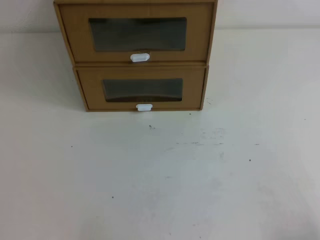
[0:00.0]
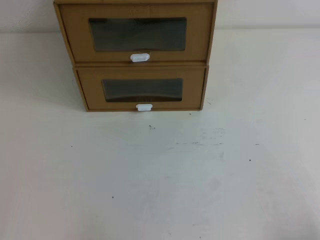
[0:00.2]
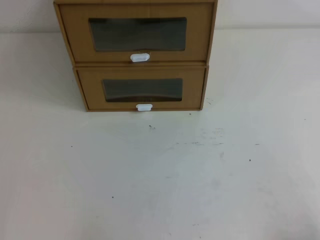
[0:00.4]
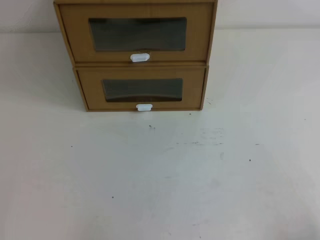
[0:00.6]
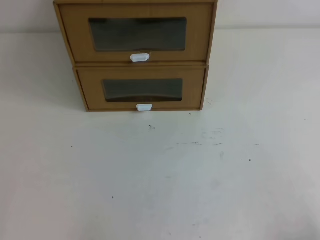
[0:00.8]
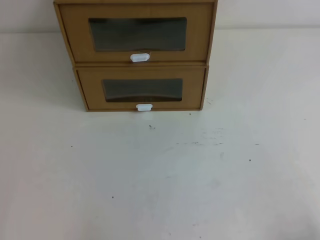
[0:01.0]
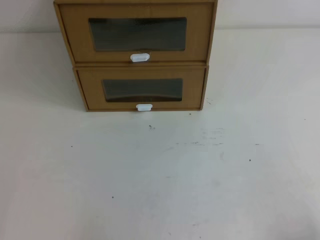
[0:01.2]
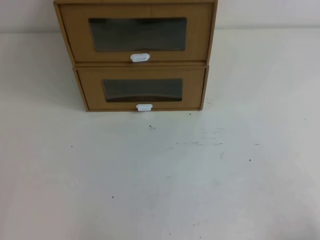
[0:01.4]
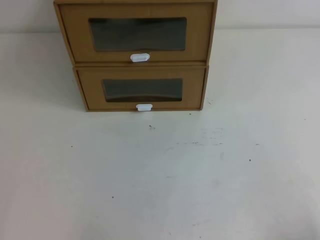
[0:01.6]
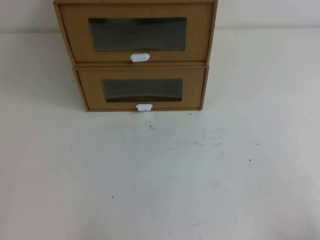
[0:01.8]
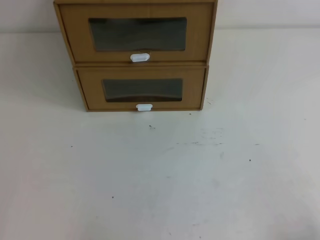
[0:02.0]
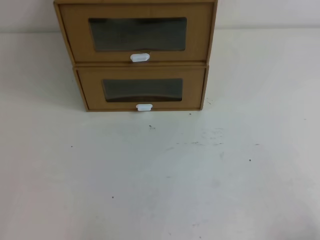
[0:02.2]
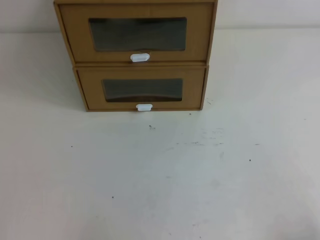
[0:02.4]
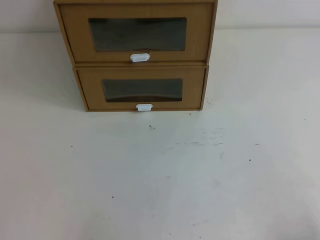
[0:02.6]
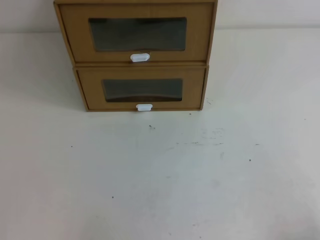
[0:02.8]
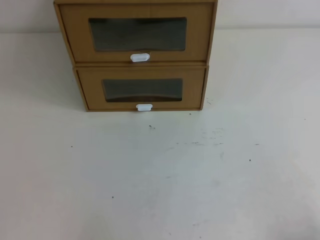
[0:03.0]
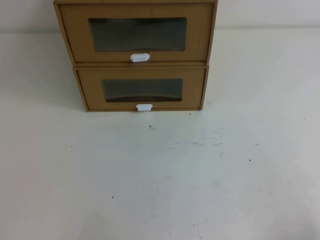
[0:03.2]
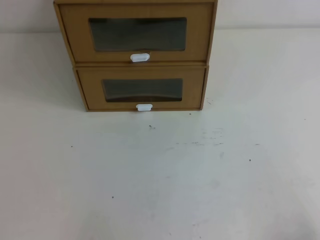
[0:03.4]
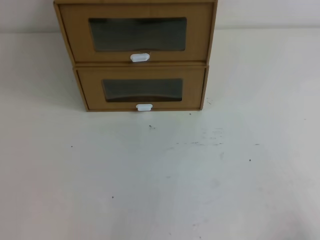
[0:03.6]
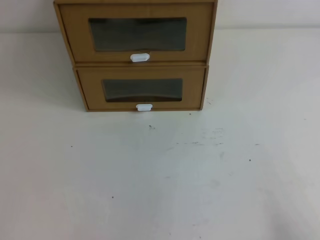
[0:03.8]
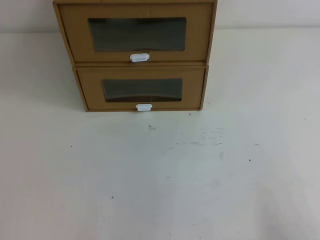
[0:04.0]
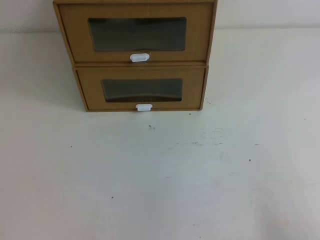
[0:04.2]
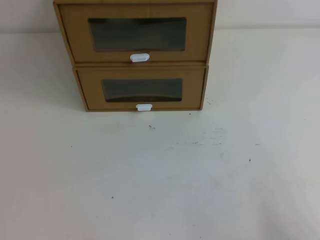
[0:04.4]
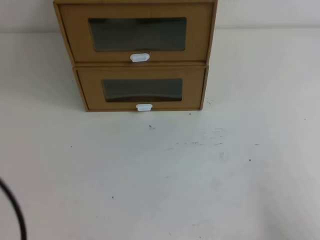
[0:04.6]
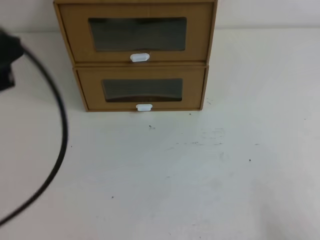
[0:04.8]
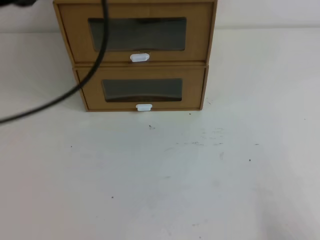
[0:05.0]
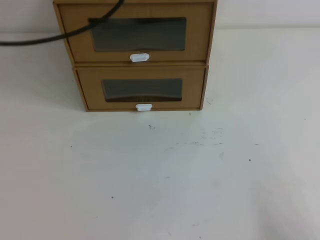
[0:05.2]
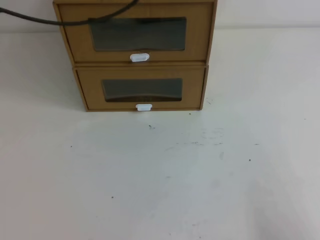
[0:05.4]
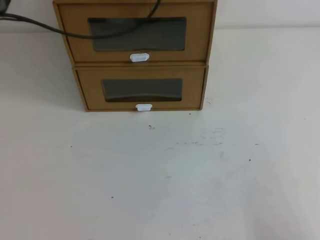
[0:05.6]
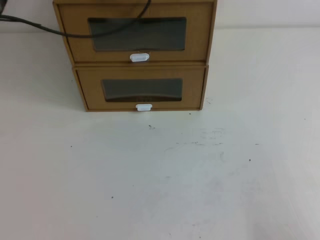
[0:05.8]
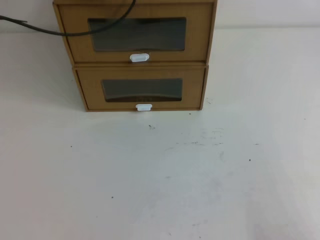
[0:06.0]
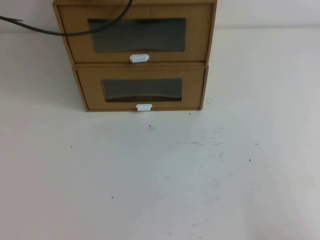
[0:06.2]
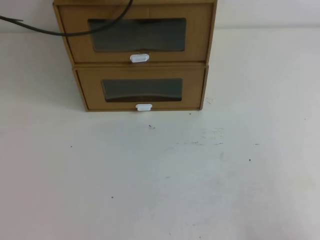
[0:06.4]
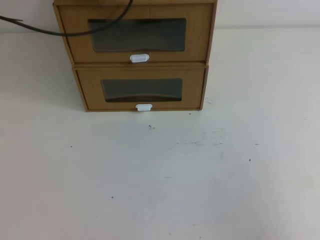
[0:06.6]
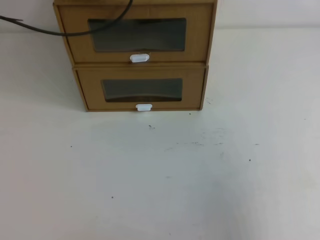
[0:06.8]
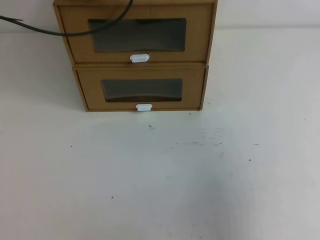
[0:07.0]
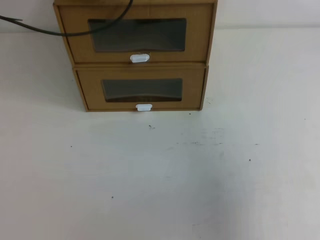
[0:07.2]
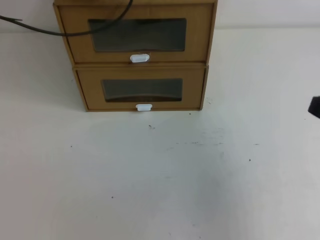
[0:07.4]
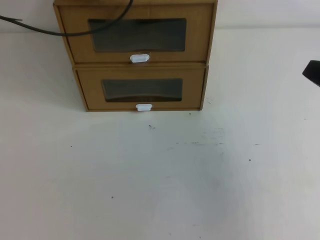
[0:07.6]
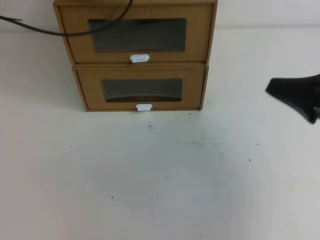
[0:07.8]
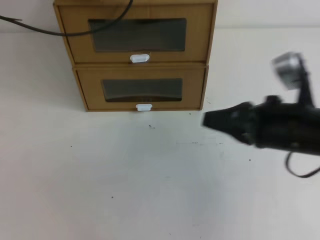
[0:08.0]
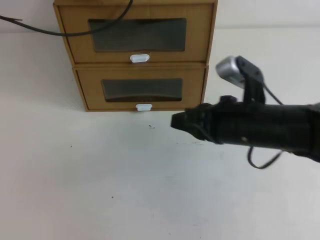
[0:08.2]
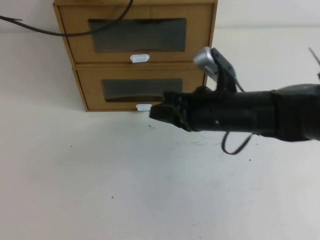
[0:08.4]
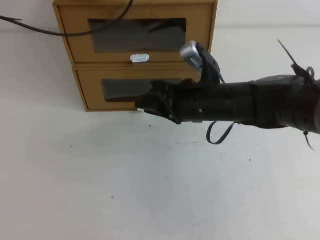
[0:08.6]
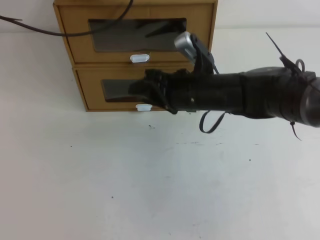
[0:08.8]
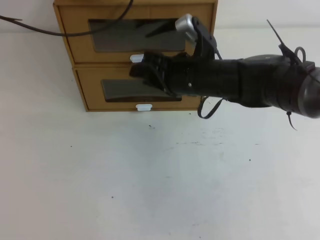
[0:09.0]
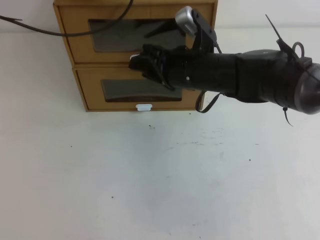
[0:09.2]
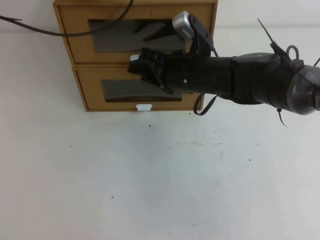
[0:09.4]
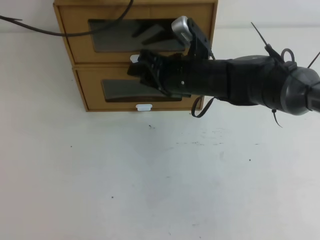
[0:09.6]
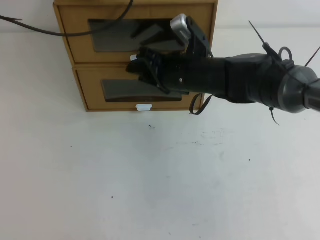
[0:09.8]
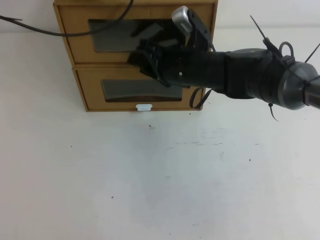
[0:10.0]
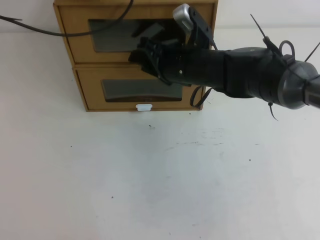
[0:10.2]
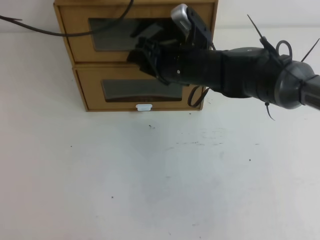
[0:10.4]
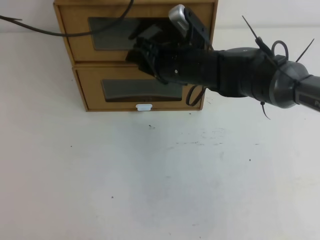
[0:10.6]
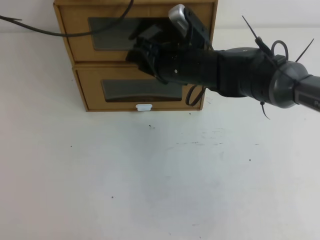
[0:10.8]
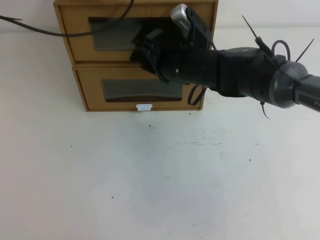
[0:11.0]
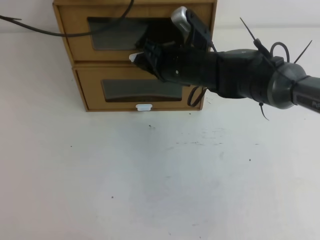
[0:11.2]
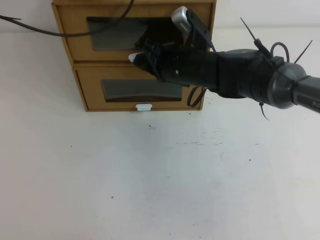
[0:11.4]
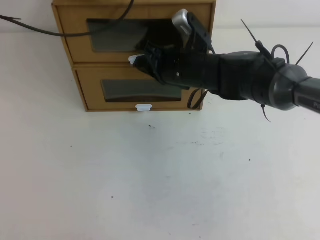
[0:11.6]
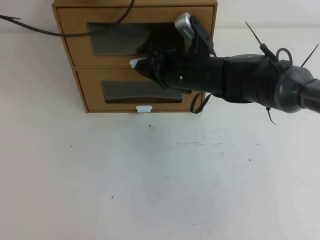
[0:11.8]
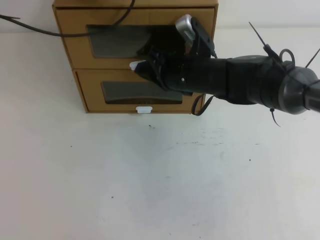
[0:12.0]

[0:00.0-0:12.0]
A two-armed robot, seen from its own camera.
Task of the whole recording: open the shoebox on the table.
0:00.0 to 0:03.0: Both grippers stay about where they are.
0:06.0 to 0:07.6: The right gripper goes some 20 cm upward and forward.
0:07.6 to 0:09.0: The right gripper shifts some 25 cm to the left and forward, and opens its fingers.
0:09.0 to 0:10.4: The grippers move only a little.
0:10.4 to 0:12.0: The right gripper closes up.

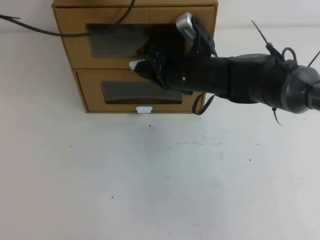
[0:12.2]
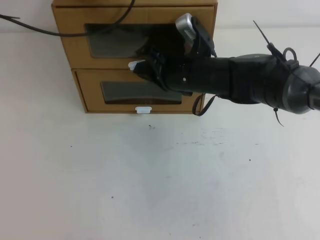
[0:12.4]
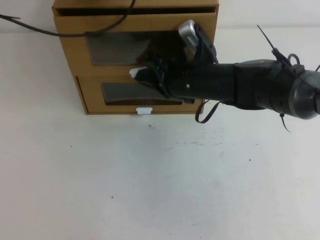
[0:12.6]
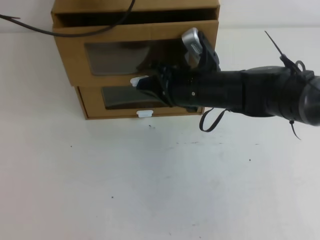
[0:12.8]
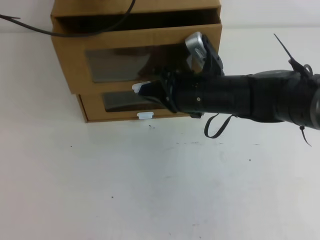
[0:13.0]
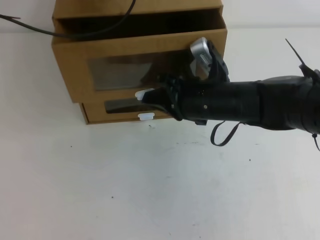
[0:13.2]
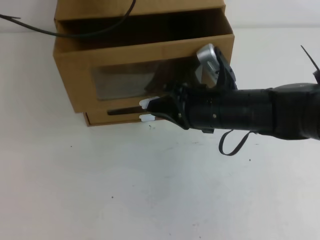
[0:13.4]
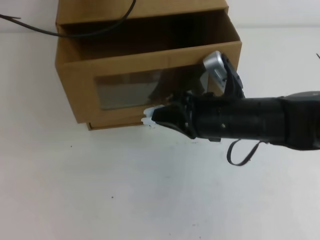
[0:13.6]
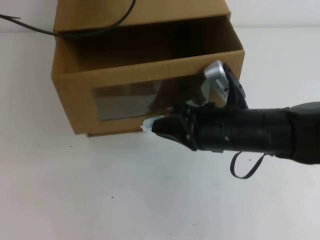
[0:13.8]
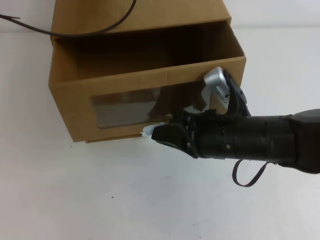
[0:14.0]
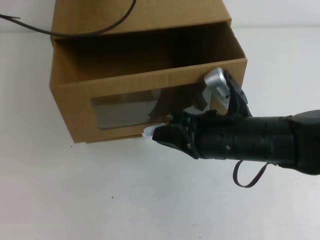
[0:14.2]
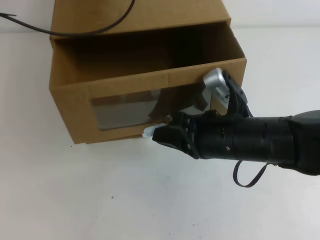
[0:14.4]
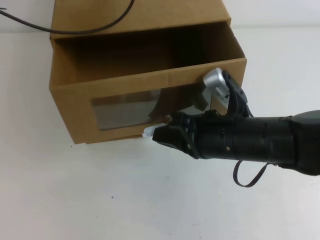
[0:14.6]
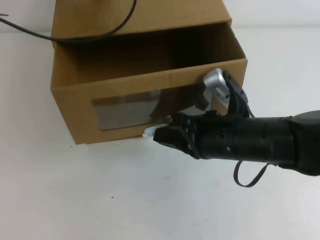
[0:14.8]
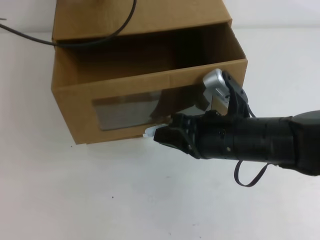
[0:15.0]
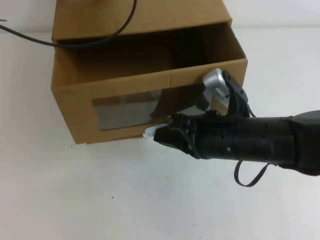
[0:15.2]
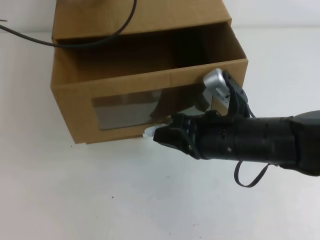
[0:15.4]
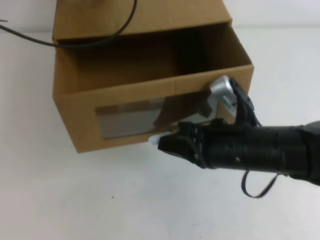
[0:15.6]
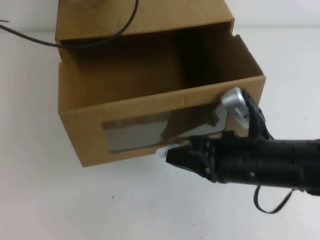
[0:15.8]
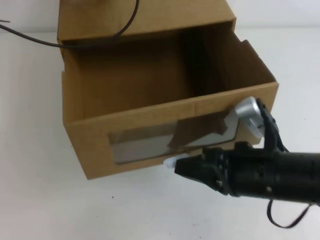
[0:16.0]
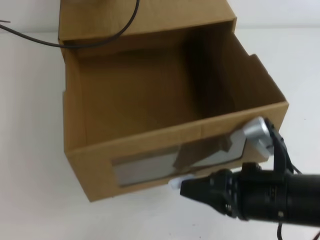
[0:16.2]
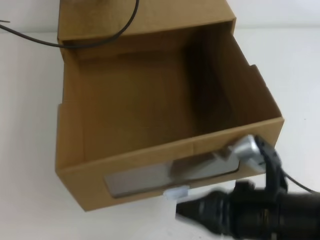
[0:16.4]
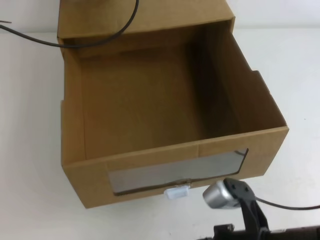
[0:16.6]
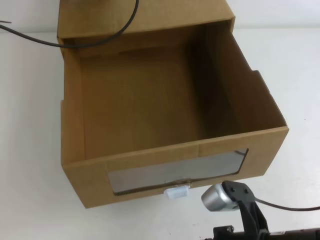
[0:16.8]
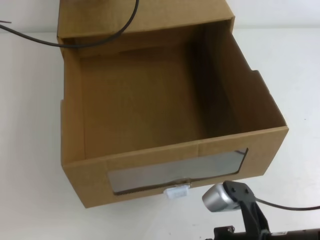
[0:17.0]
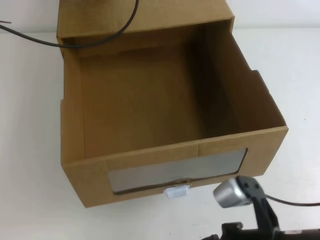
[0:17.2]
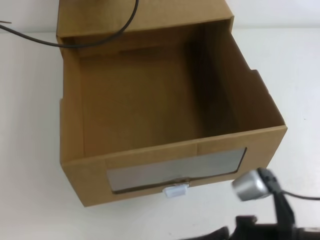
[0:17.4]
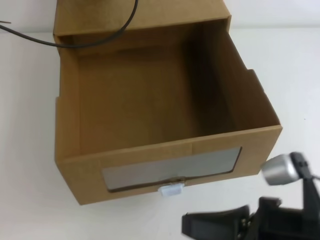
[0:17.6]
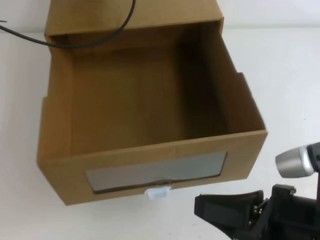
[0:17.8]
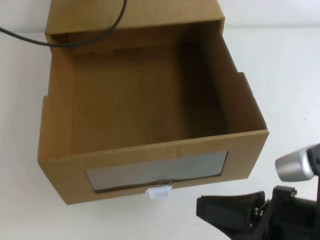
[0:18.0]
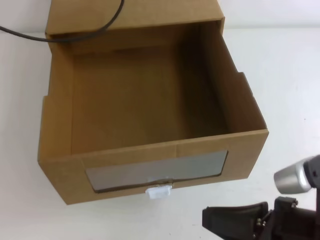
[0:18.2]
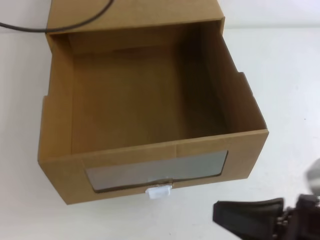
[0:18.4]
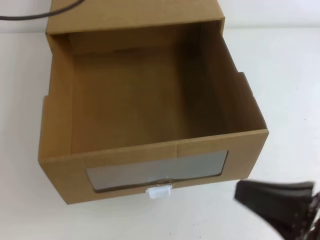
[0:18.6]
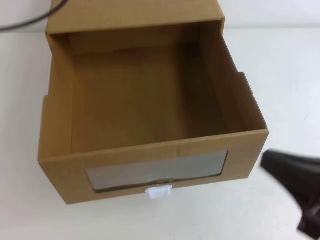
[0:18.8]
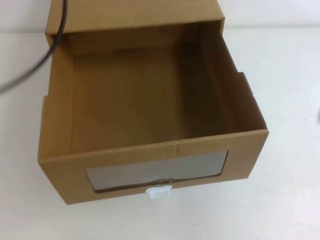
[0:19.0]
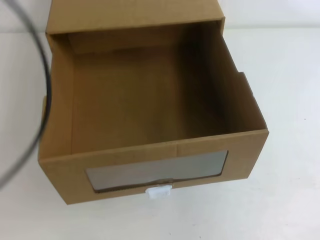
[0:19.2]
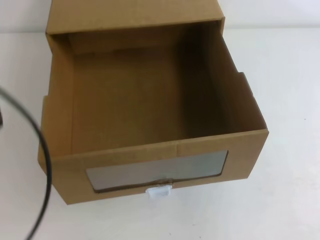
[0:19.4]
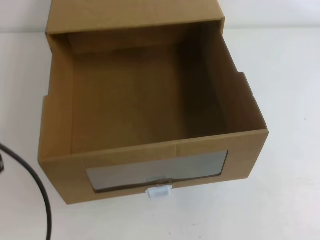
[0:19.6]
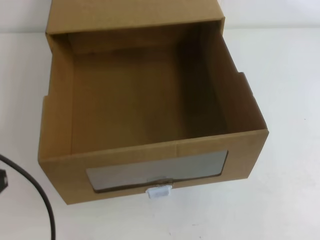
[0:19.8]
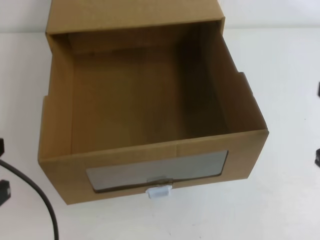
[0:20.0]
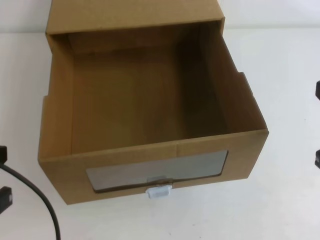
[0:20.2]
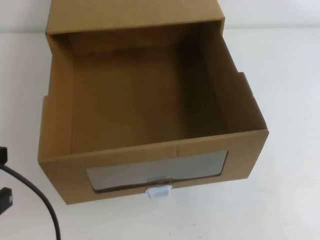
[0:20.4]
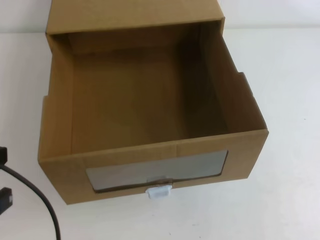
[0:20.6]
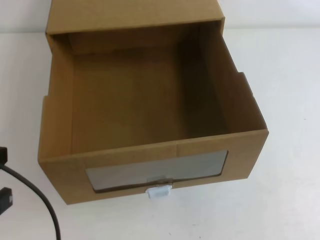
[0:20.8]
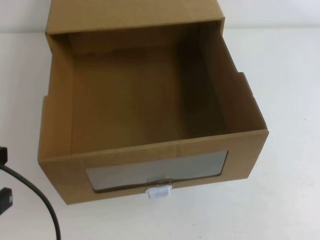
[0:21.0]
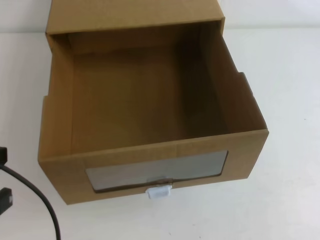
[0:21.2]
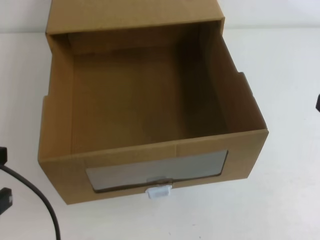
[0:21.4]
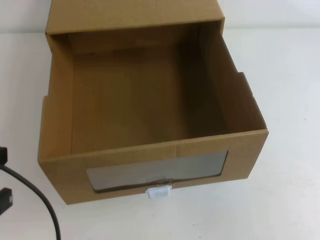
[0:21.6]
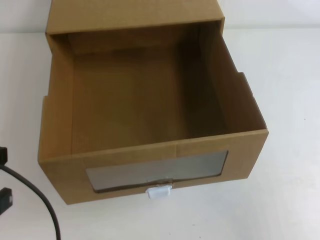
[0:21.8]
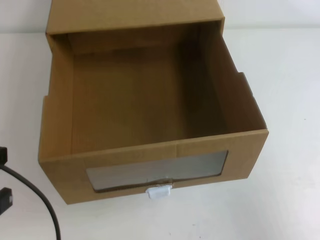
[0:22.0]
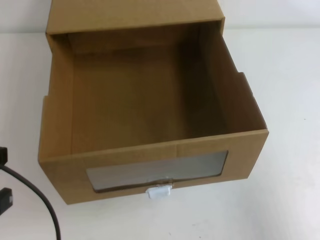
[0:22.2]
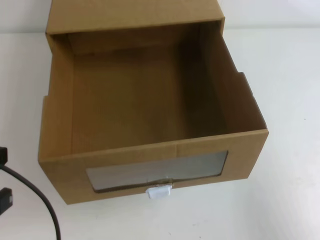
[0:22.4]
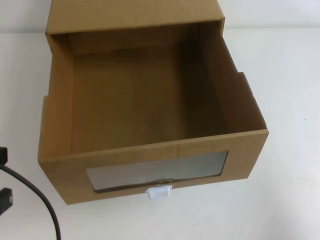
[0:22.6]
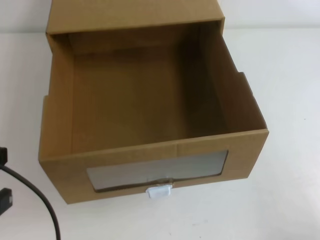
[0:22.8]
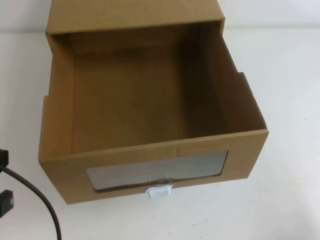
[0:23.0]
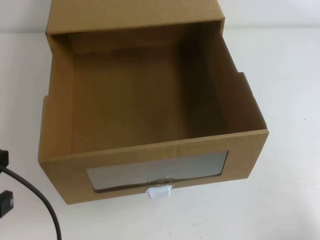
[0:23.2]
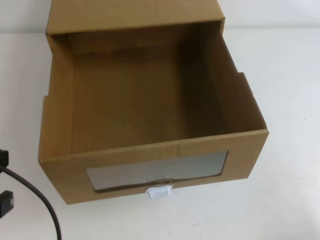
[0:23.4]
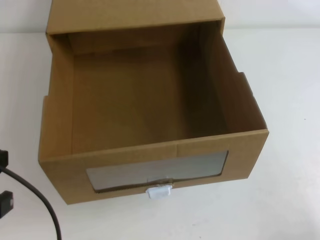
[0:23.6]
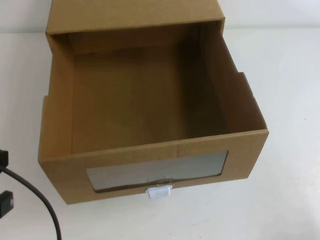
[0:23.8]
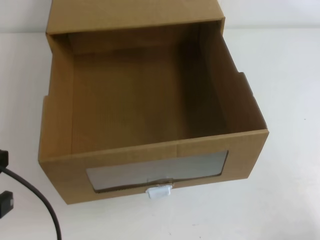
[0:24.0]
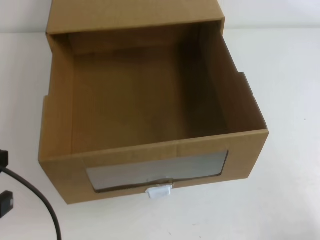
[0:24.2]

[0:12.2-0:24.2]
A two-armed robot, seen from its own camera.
Task of the whole recording: open the shoebox on the table.
0:12.2 to 0:13.8: The right gripper is displaced backward by about 10 cm.
0:13.8 to 0:15.2: There are only small adjustments of the grippers.
0:15.2 to 0:16.6: The right gripper travels backward by approximately 15 cm.
0:16.6 to 0:18.2: The right gripper moves about 5 cm; the left gripper heads upward, covering approximately 5 cm.
0:18.2 to 0:19.8: The left gripper heads backward, covering about 30 cm. The right gripper moves to the right and upward, about 10 cm.
0:19.8 to 0:21.2: The grippers make only small movements.
0:21.2 to 0:22.6: The right gripper moves downward and to the right, about 15 cm.
